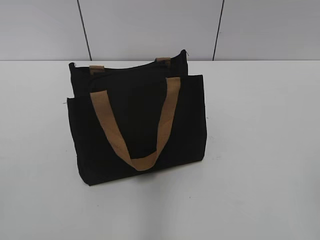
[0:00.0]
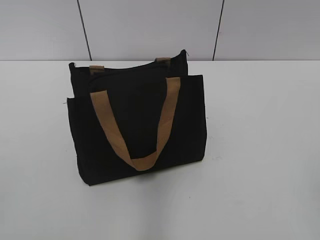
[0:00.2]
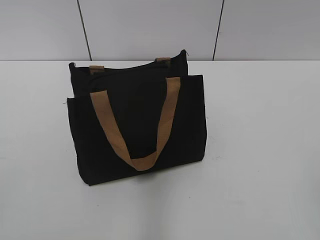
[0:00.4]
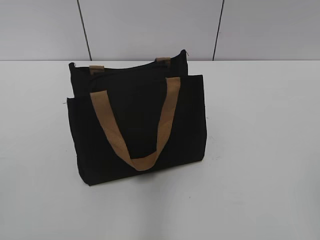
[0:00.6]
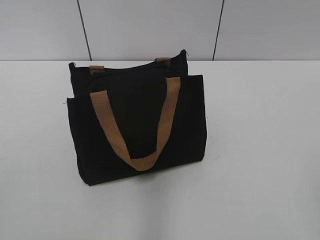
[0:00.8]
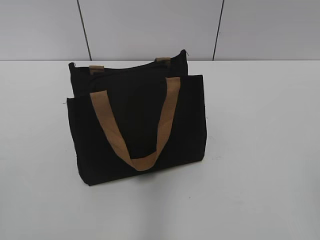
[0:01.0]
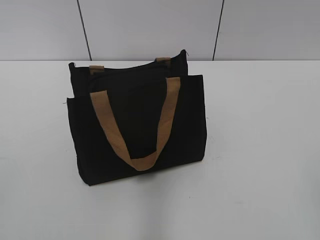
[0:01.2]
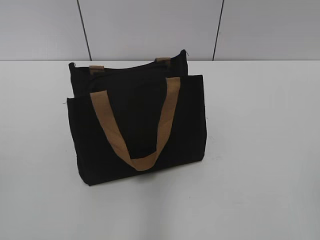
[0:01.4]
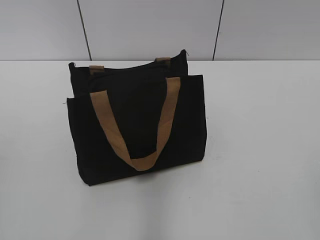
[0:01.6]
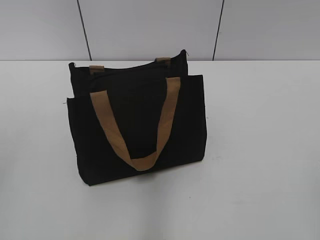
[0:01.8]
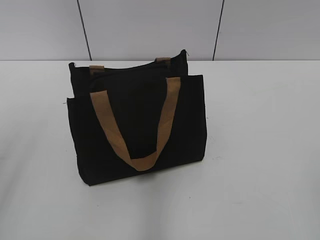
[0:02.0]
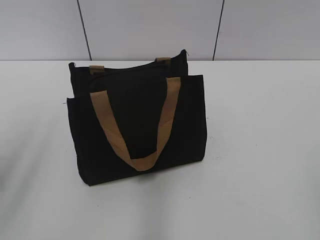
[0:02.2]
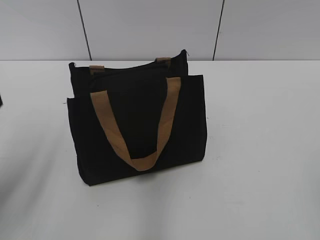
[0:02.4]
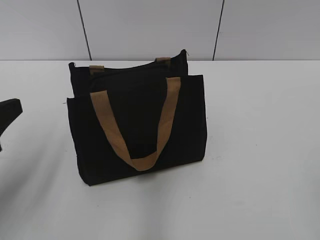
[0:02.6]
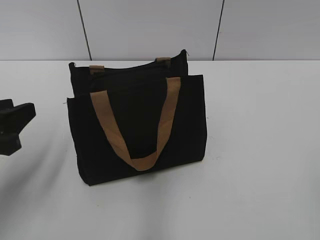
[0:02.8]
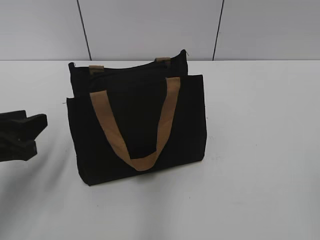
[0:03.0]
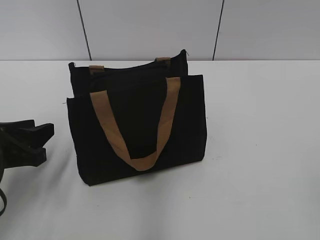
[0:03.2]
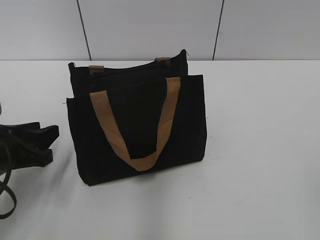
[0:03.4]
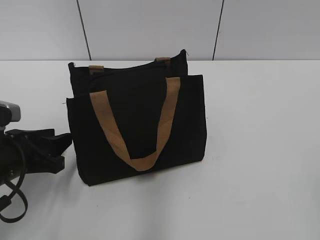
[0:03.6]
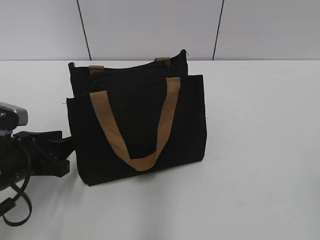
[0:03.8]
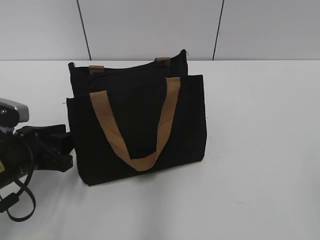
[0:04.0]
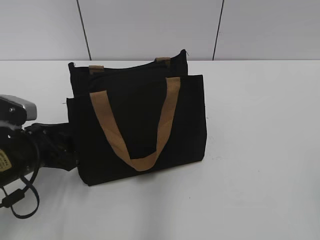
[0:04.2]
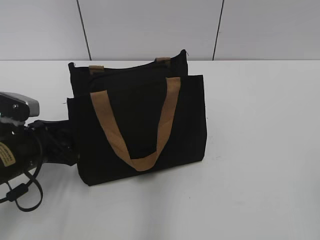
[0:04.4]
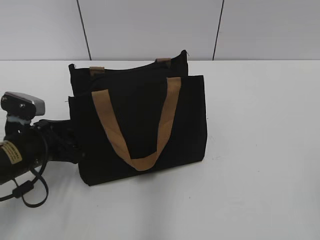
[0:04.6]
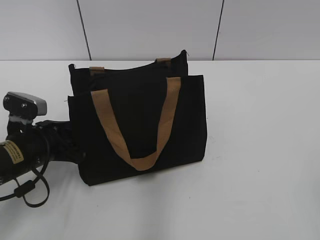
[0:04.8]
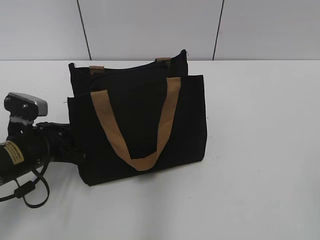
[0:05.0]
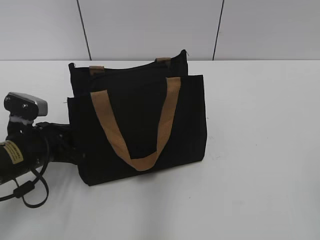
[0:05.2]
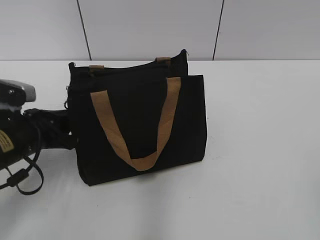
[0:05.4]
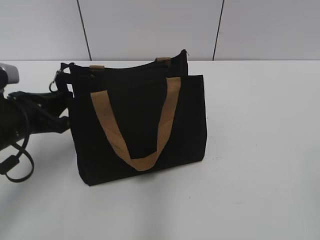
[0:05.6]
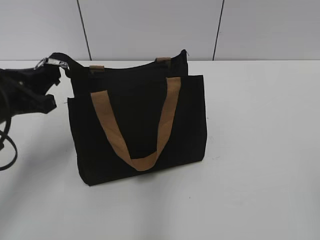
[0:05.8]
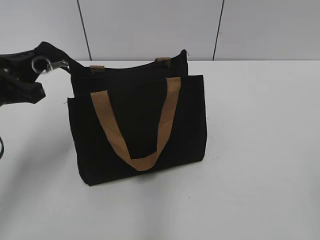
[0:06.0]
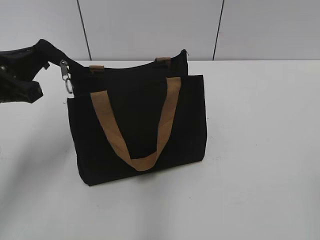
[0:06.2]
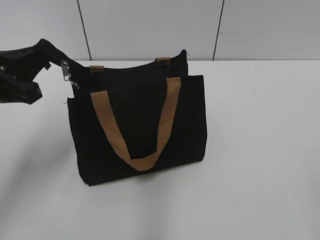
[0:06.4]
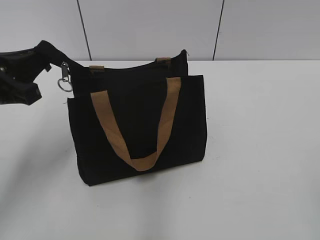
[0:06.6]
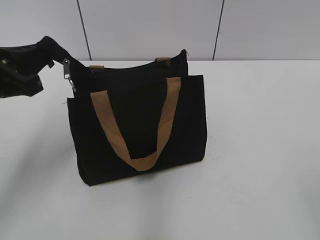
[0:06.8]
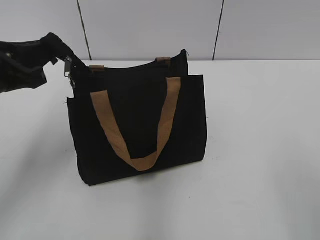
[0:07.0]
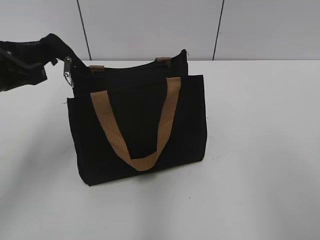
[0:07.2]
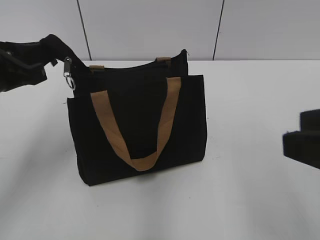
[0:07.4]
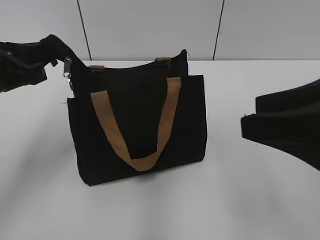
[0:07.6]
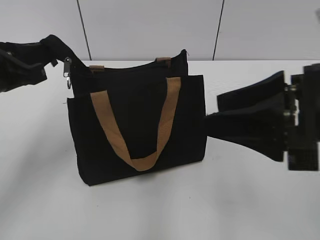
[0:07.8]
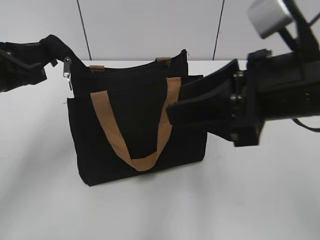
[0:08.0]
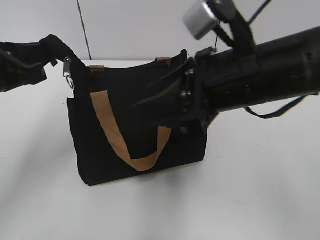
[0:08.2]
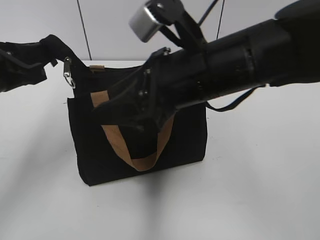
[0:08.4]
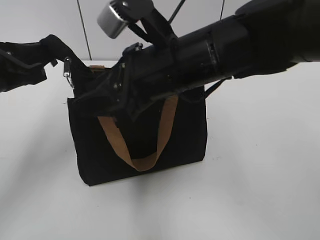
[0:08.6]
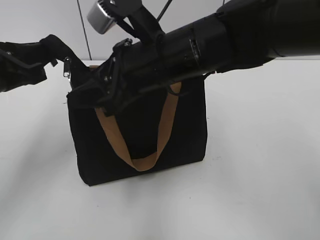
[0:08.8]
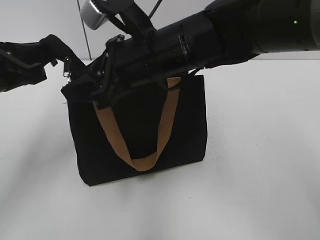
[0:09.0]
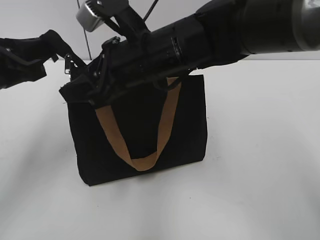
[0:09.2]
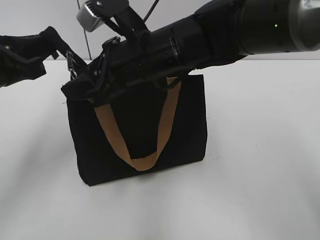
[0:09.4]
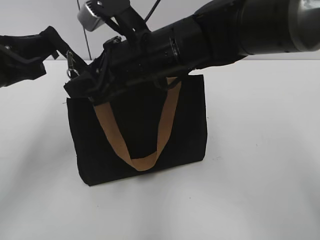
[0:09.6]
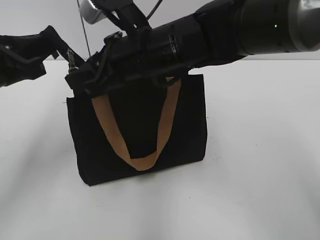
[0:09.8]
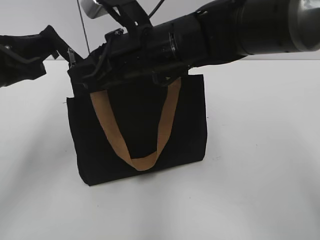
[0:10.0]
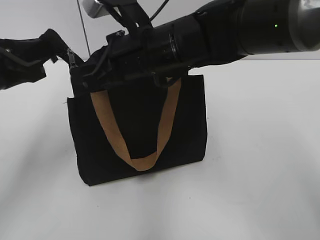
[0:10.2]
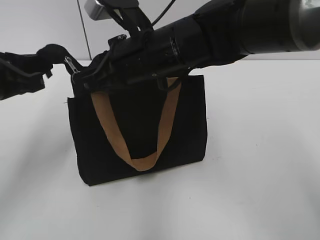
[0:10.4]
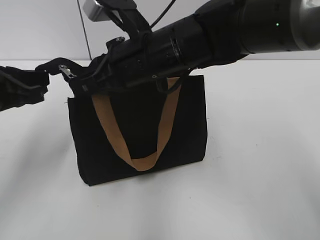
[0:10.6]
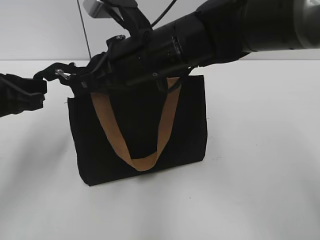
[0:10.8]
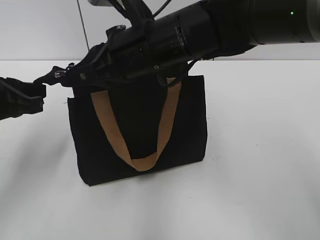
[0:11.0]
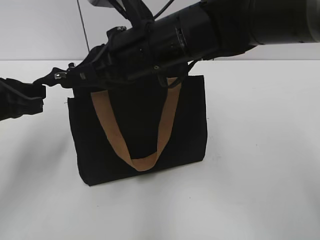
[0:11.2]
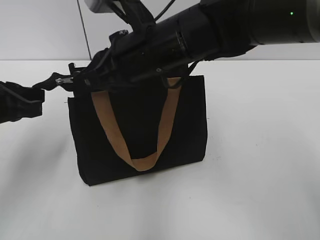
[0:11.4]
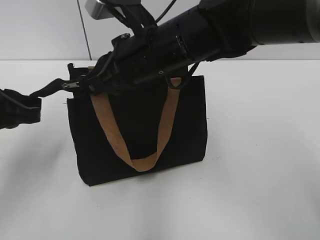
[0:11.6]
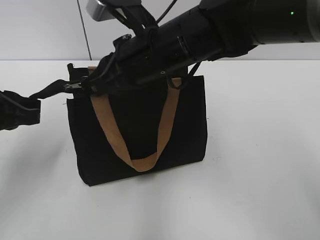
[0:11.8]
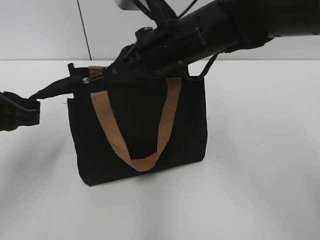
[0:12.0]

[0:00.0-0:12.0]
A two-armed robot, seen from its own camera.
0:01.6 to 0:03.0: The left gripper is displaced downward and forward by some 20 cm.
0:03.0 to 0:04.4: The left gripper heads downward and forward, covering about 10 cm.
0:04.4 to 0:06.0: The left gripper goes about 10 cm upward, and closes.
0:06.0 to 0:07.6: The right gripper is displaced forward and to the left by some 15 cm.
0:07.6 to 0:09.0: The right gripper goes about 25 cm to the left and forward.
0:09.0 to 0:10.4: The right gripper closes.

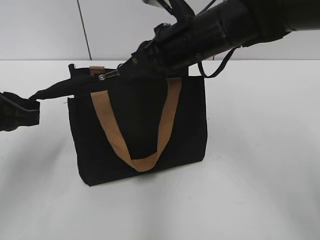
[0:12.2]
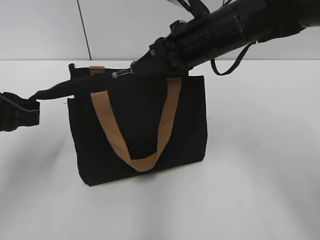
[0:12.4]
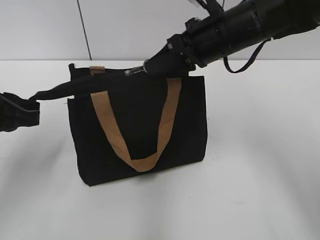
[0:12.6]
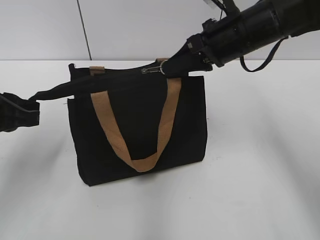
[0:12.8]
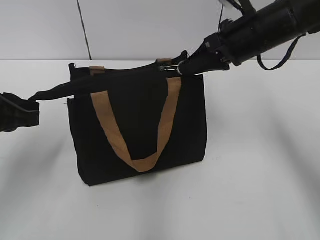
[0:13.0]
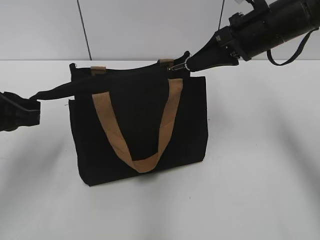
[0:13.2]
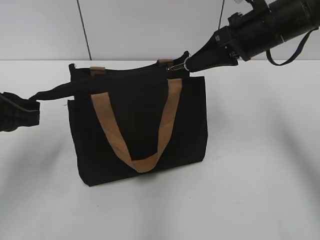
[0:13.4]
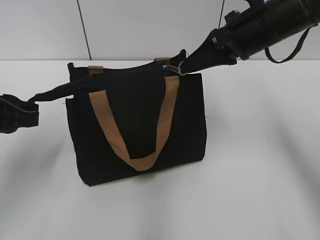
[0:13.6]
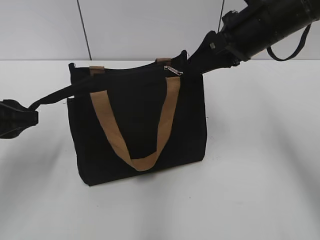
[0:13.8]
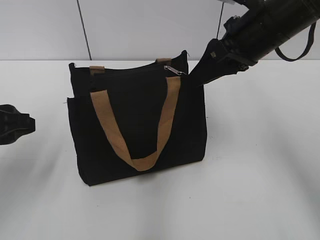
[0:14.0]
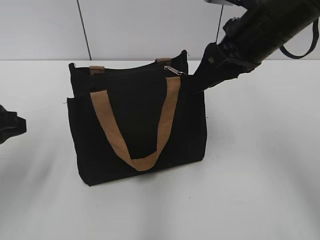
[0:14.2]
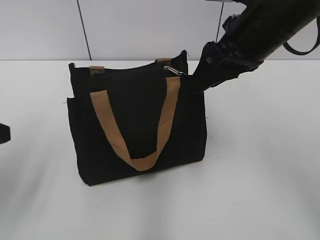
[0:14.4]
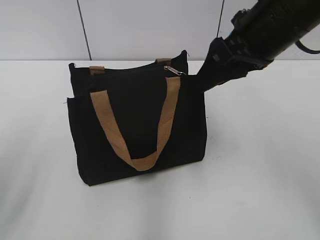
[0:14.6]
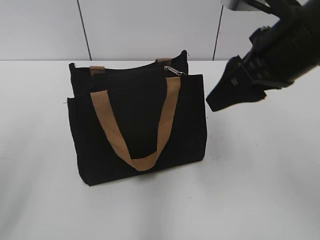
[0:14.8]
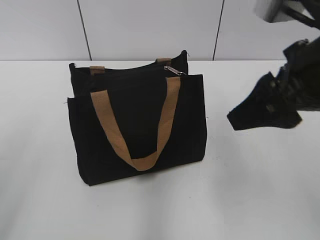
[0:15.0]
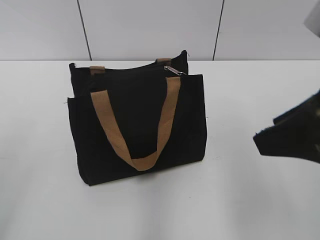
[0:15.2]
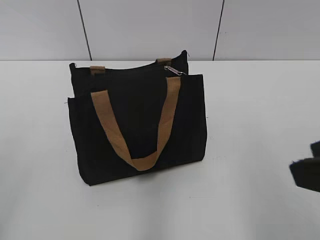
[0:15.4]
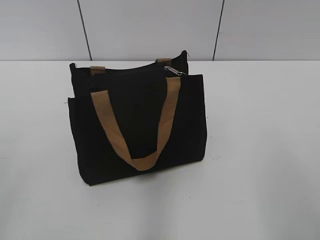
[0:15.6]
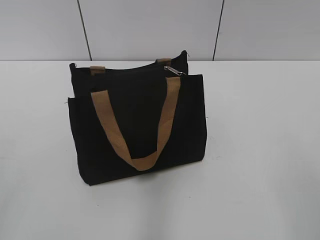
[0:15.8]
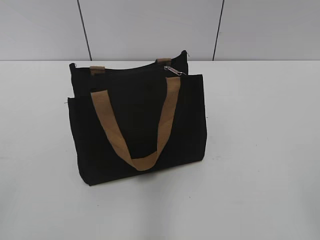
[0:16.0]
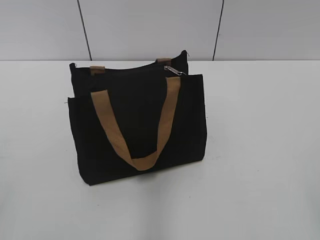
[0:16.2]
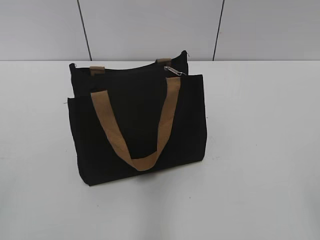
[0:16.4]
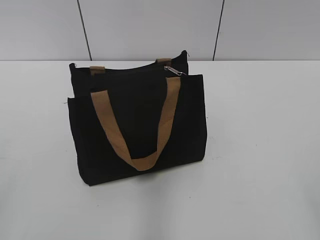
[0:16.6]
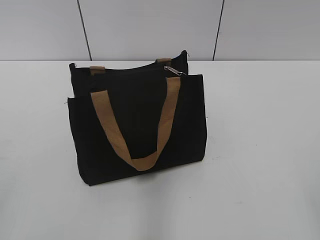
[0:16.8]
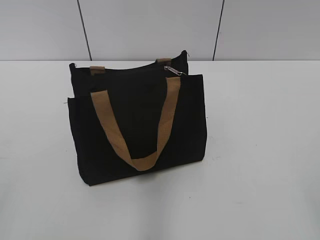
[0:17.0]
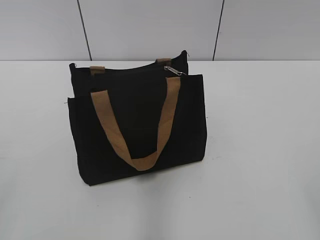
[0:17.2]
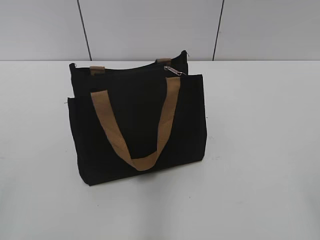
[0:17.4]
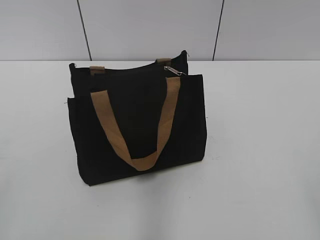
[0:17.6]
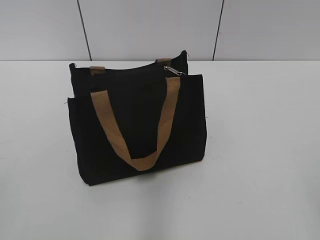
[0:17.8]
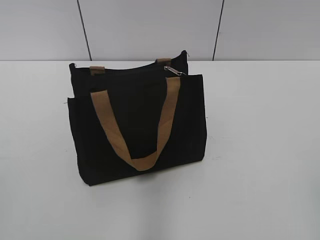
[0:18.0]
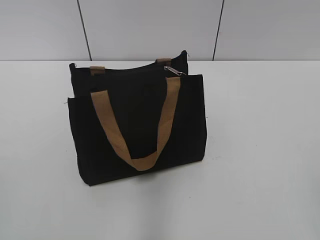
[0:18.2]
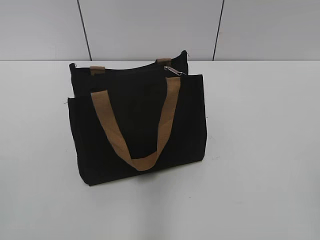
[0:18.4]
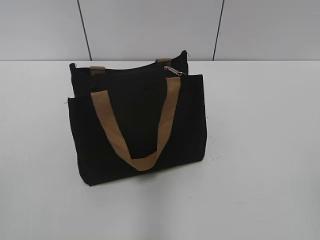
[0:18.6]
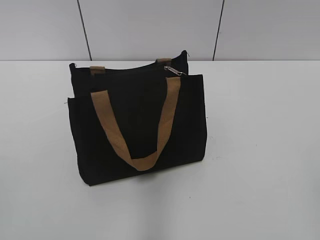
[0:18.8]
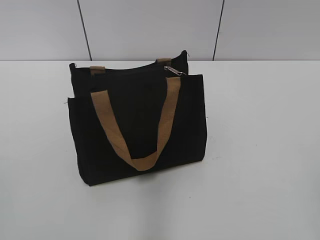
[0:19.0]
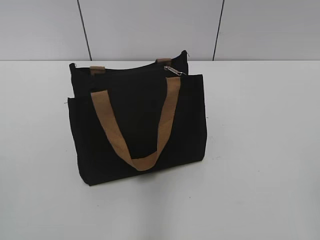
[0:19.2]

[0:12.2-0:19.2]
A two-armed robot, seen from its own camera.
0:12.2 to 0:13.6: The right gripper goes some 10 cm to the right.
0:13.6 to 0:15.0: The right gripper goes some 15 cm backward, and opens. The left gripper moves backward and upward, approximately 15 cm, and opens up.
0:15.0 to 0:16.4: The right gripper goes approximately 25 cm backward and to the right.

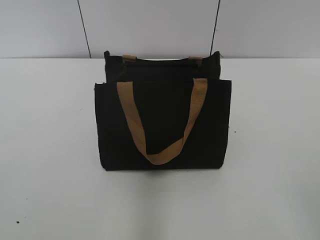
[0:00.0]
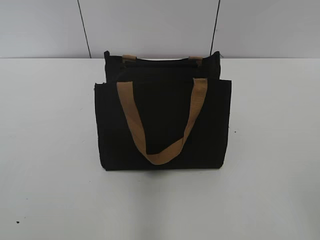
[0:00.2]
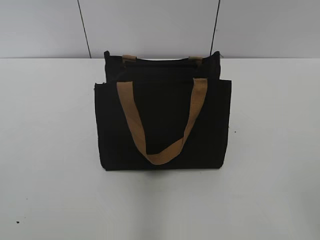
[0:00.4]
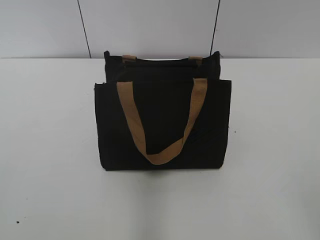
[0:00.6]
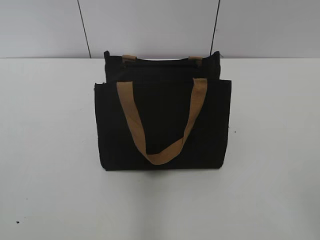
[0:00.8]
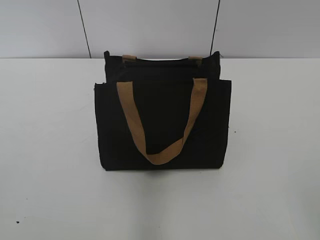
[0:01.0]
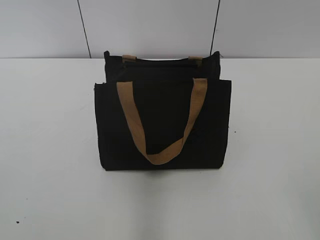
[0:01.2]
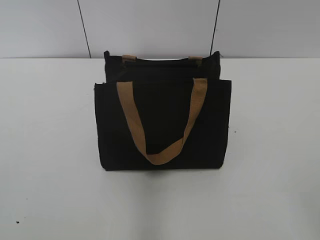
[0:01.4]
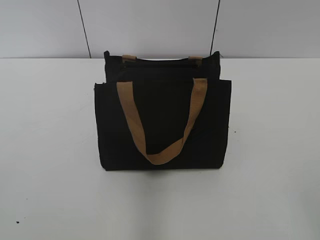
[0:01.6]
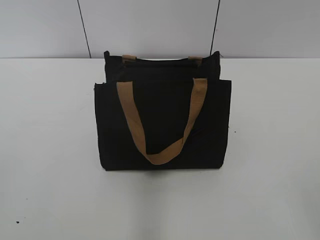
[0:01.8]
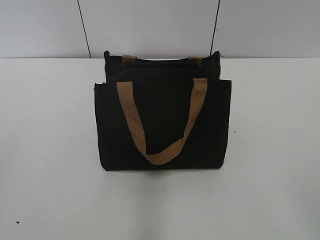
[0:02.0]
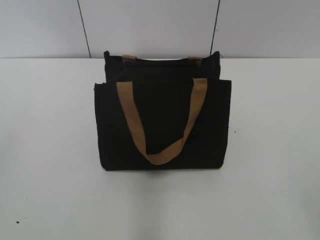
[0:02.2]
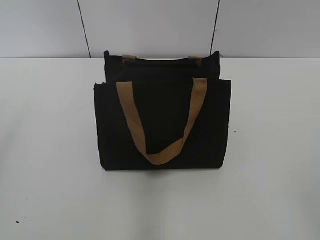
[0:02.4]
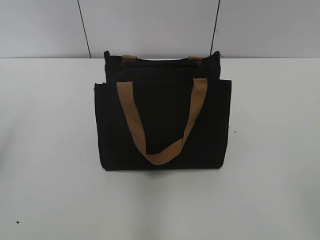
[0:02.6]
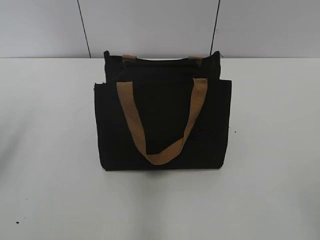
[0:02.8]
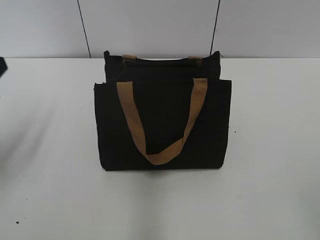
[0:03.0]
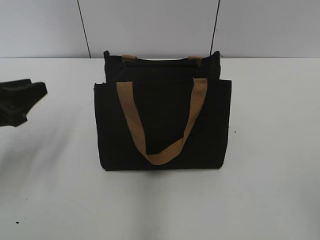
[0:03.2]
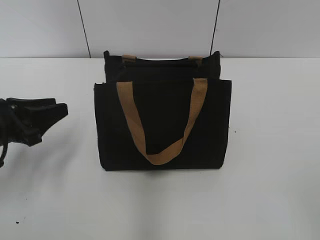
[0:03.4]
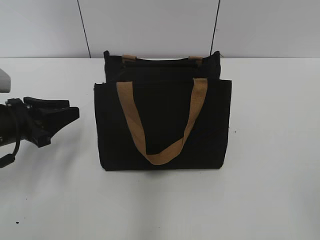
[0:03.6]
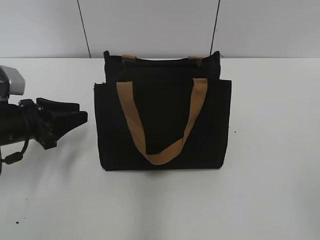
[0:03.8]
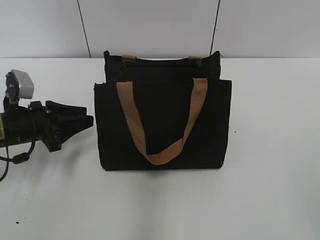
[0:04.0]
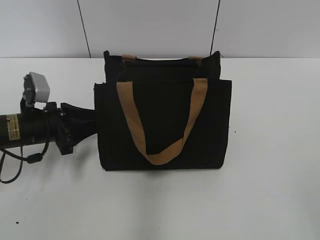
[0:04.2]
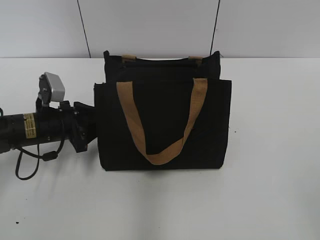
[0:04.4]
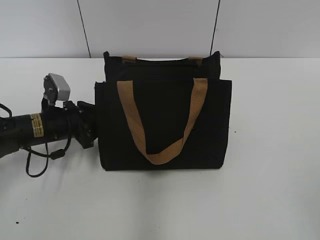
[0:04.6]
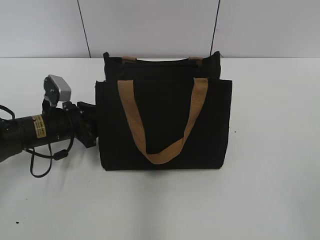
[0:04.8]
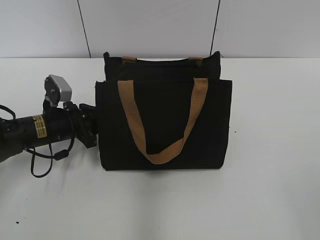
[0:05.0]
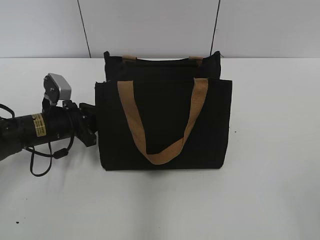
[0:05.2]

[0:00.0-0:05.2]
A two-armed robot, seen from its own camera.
0:01.8 to 0:03.4: The left gripper is displaced forward and downward by about 30 cm, and closes up.
0:03.4 to 0:05.2: The left gripper is displaced forward, downward and to the right by about 15 cm, and closes.
